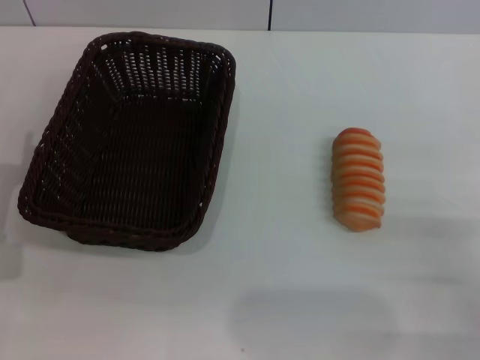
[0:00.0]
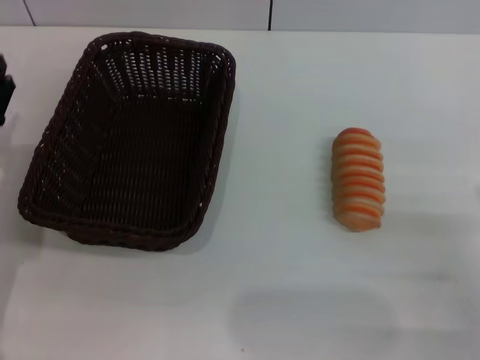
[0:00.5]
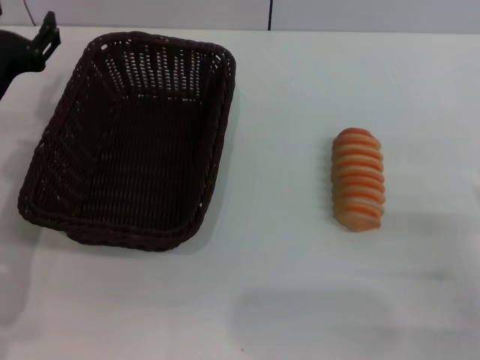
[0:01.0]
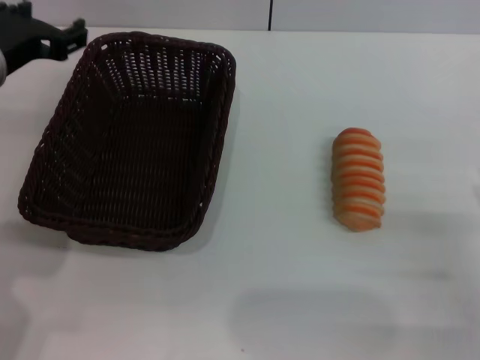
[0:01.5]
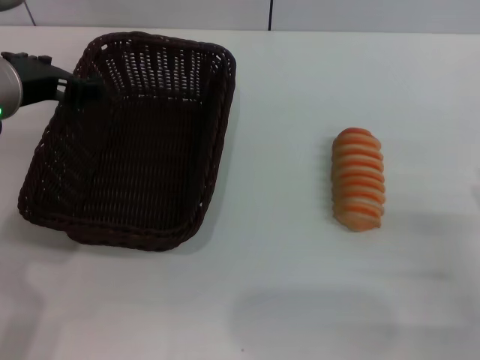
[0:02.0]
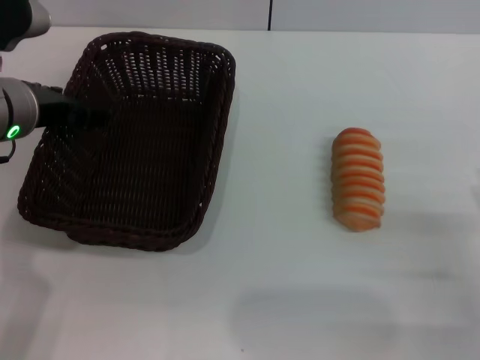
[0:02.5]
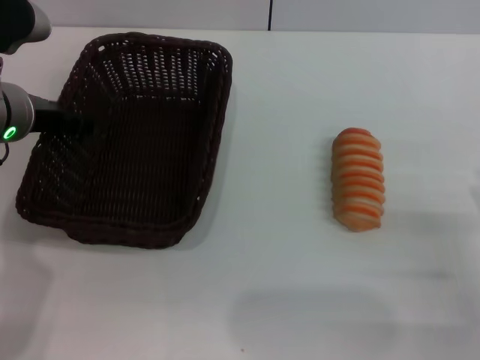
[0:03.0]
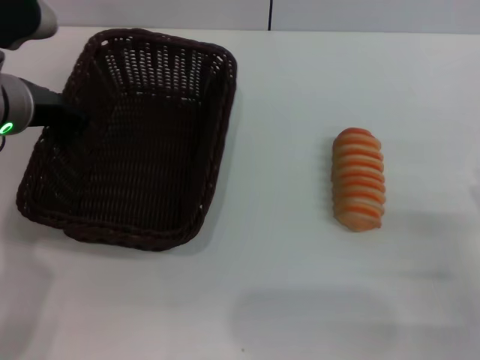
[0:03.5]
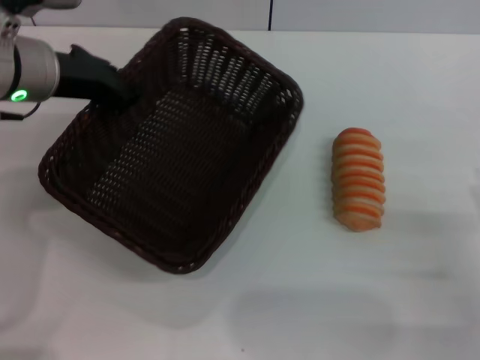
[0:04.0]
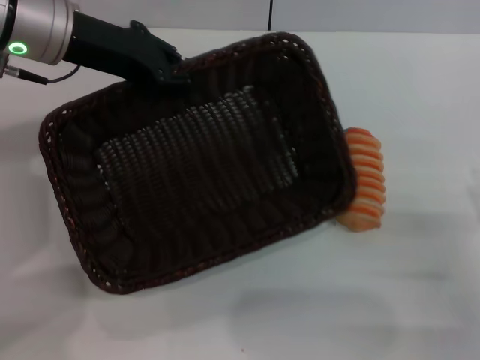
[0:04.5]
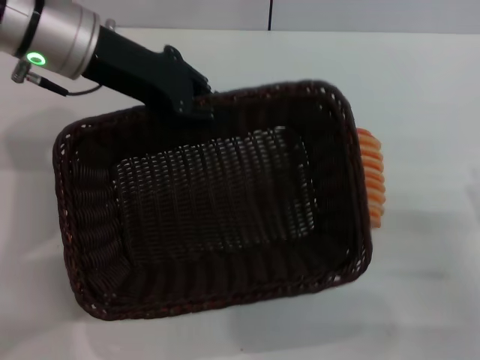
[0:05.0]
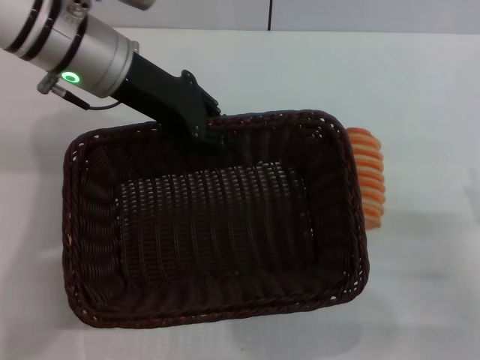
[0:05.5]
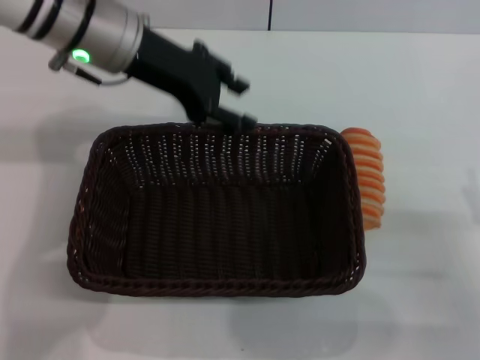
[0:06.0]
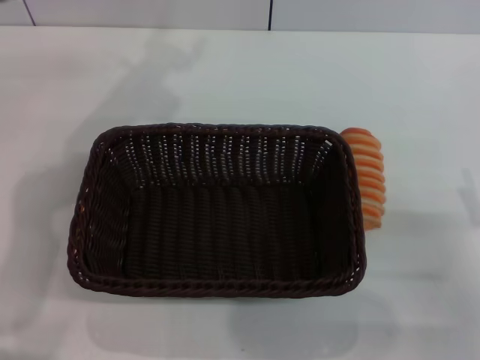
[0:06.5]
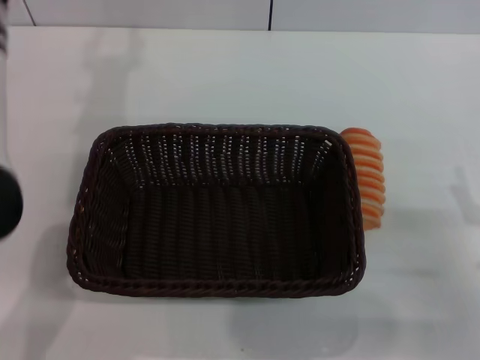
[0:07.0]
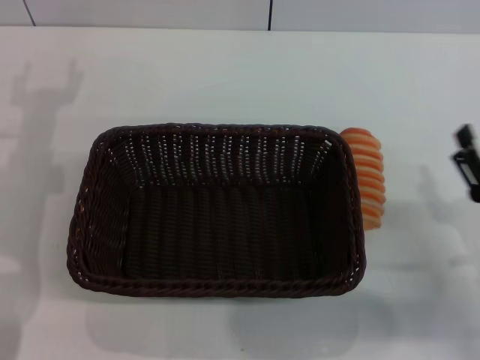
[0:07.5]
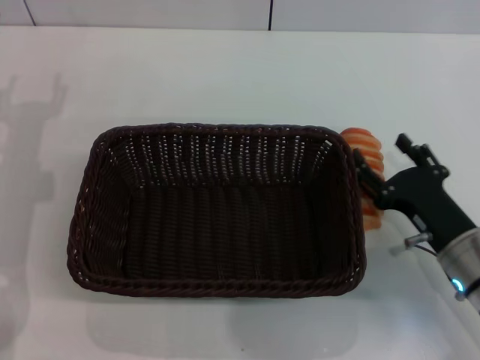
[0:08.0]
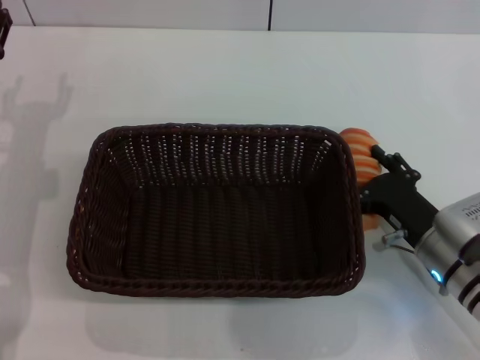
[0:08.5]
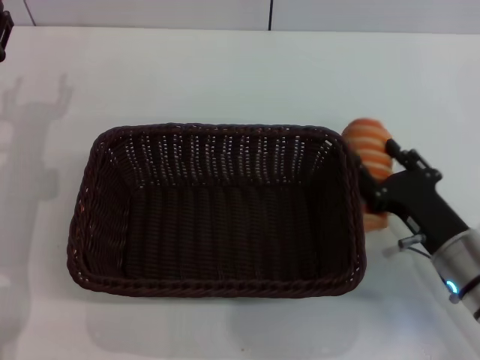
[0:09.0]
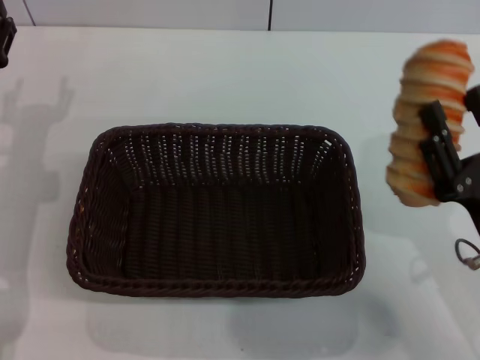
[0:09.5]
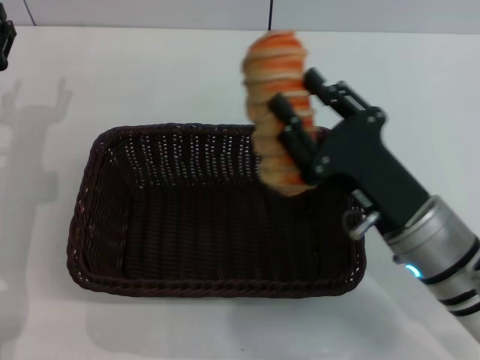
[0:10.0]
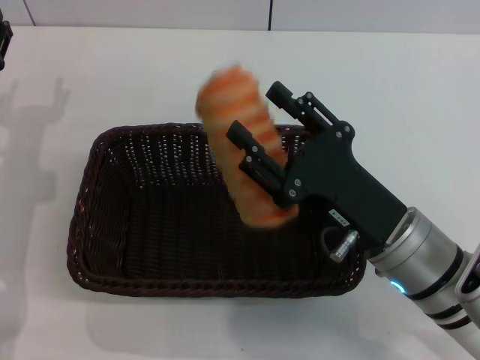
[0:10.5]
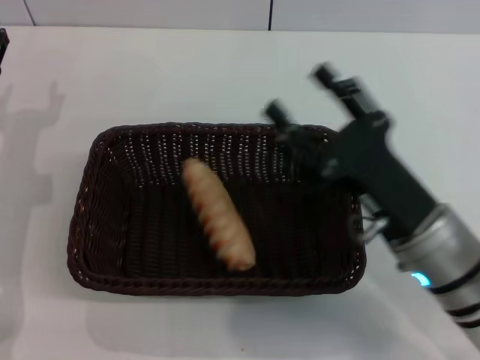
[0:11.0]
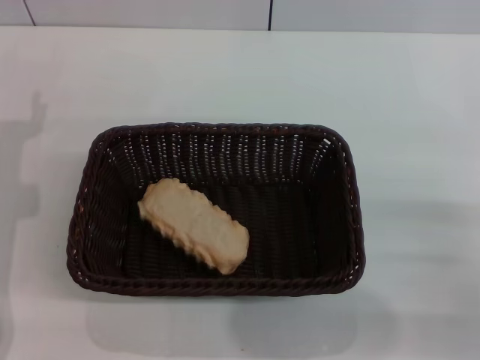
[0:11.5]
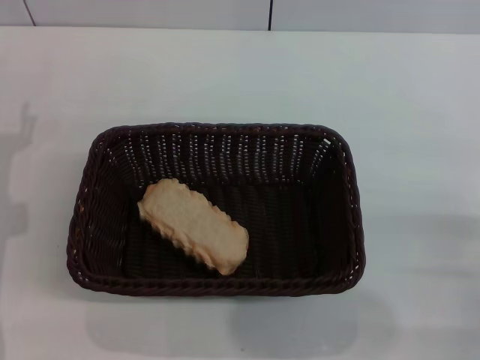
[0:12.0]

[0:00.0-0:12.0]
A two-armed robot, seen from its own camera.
Step, 0.0 to 4.0 s: Pick up the dark basket with the left gripper.
Step, 4.5 to 6.0 s: Place the dark basket in the center of view with the left gripper.
Step, 6.5 to 9.0 s: Pick up the long bread with the right gripper.
Step, 9.5 to 11.0 s: Place the long bread into the dark basket with the right gripper.
0.0 to 2.0 s: The left gripper travels upward, forward and to the right by some 20 cm.
2.0 to 4.0 s: The left gripper closes.
4.0 to 6.0 s: The left gripper goes roughly 5 cm to the right, and opens up.
6.0 to 8.0 s: The left gripper travels to the left, downward and backward by roughly 20 cm, and opens its fingers. Meanwhile the right gripper travels to the left and forward by about 10 cm.
8.0 to 10.0 s: The right gripper moves to the left and upward, roughly 10 cm, and closes its fingers.
10.0 to 12.0 s: The left gripper moves about 5 cm, while the right gripper moves to the right, roughly 15 cm, and opens up.

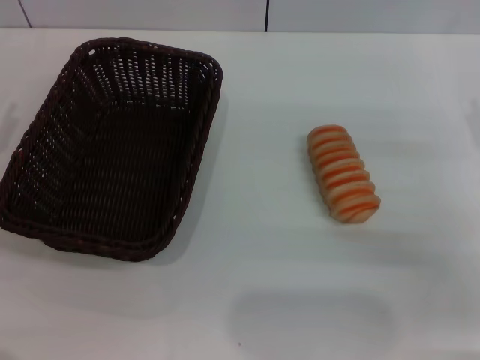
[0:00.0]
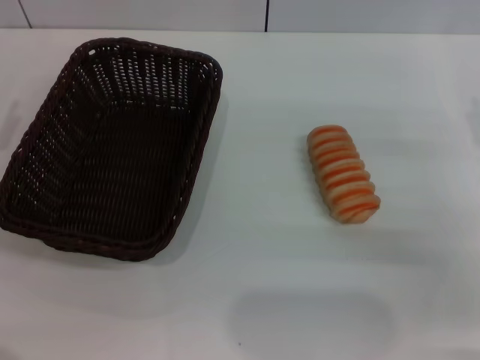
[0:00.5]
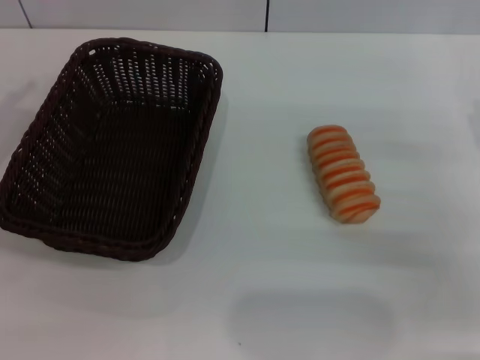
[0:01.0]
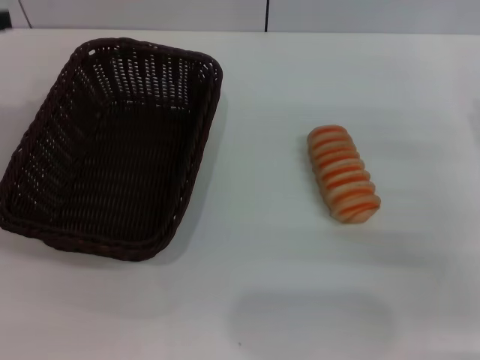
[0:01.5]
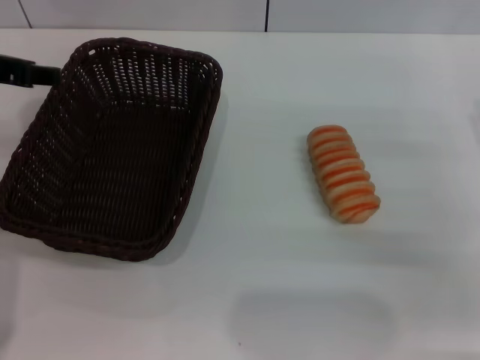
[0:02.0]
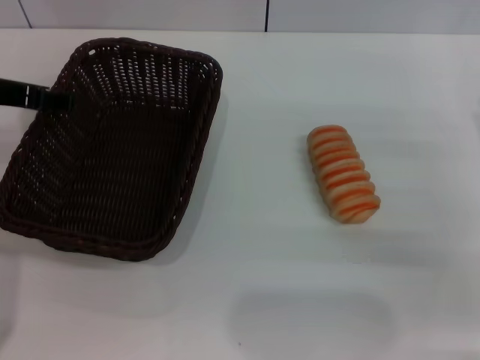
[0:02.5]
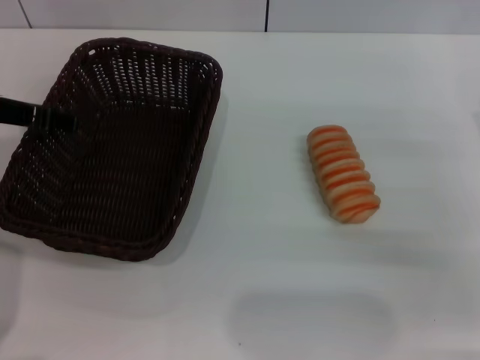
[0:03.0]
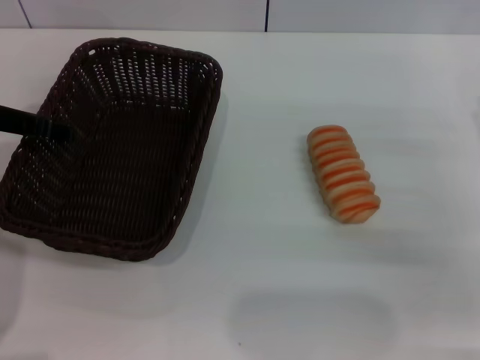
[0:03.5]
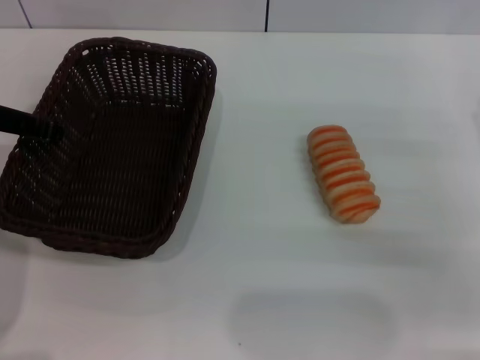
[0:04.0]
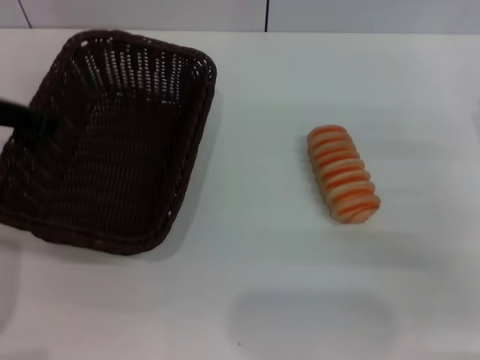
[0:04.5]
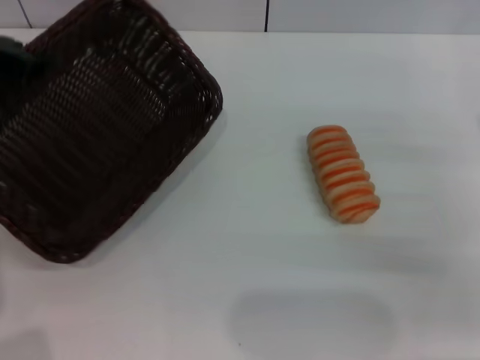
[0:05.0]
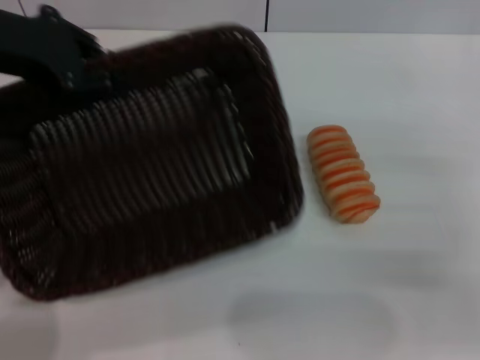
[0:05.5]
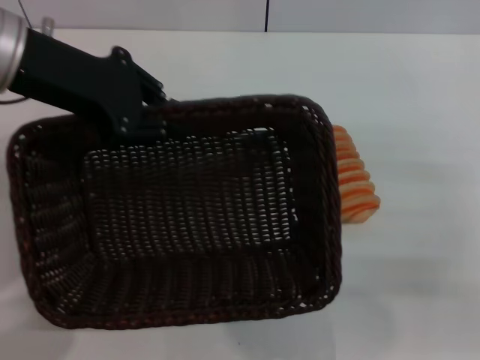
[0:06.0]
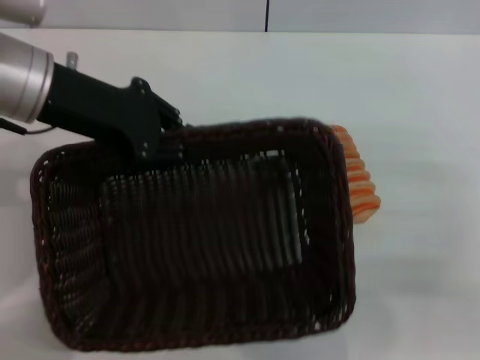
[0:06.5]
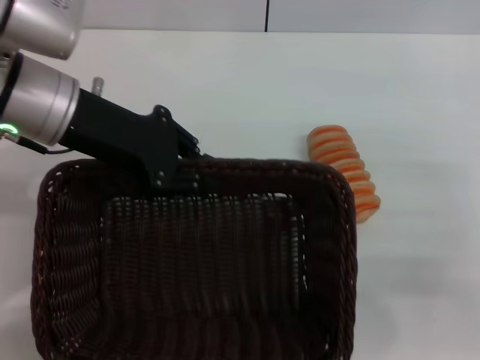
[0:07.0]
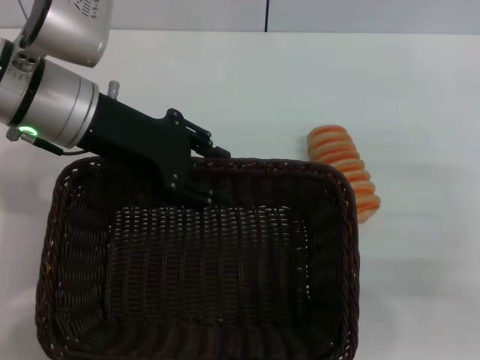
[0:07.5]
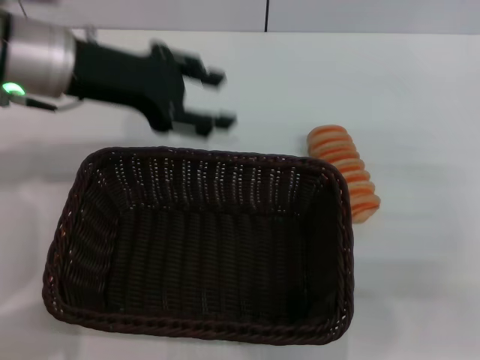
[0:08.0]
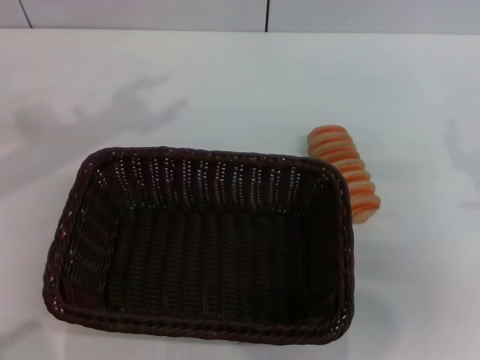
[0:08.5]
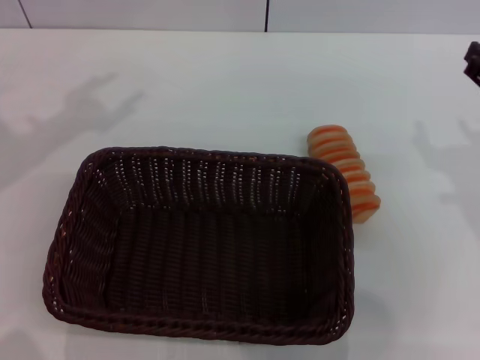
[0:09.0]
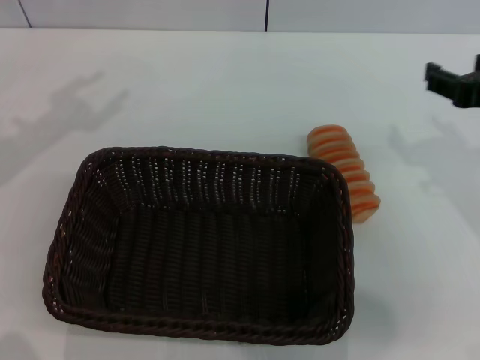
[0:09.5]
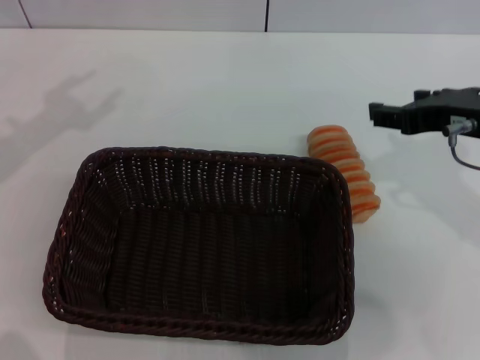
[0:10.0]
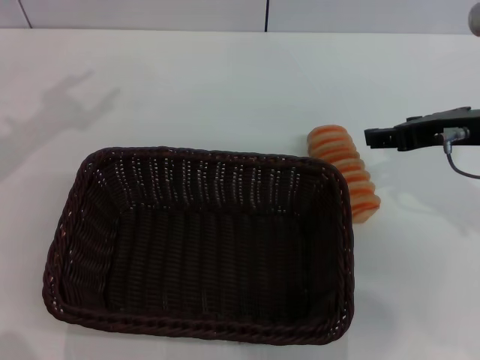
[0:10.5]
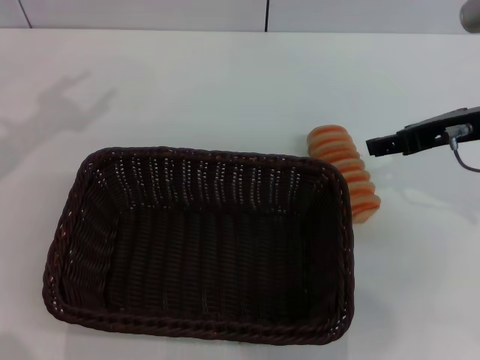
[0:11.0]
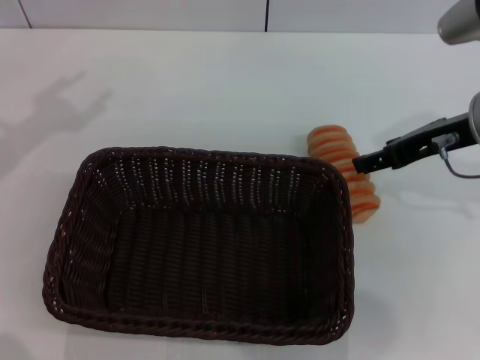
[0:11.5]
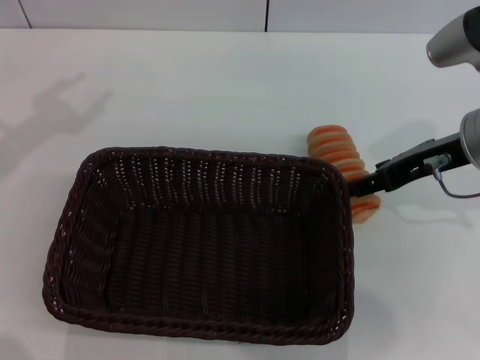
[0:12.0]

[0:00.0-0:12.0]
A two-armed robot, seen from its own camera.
Step, 0.0 to 5.0 s: Pick up the dark basket with the left gripper.
Step, 5.5 to 7.5 s: Place the dark basket in the center of view with the left gripper.
0.0 to 2.0 s: The left gripper travels upward, to the right and forward by some 20 cm.
2.0 to 4.0 s: The left gripper is displaced downward by some 5 cm, and closes.
4.0 to 6.0 s: The left gripper heads upward and to the right, covering some 10 cm.
6.0 to 8.0 s: The left gripper opens its fingers.
8.0 to 10.0 s: The right gripper goes some 15 cm to the left, upward and forward, while the left gripper goes about 15 cm to the left.
10.0 to 12.0 s: The right gripper shifts by about 5 cm.

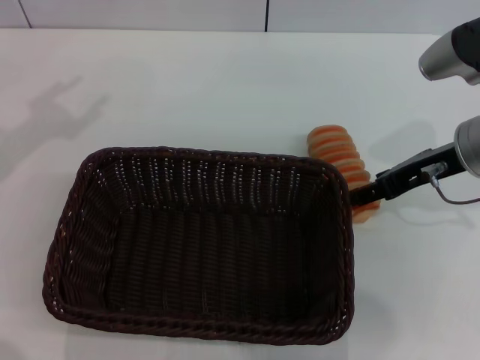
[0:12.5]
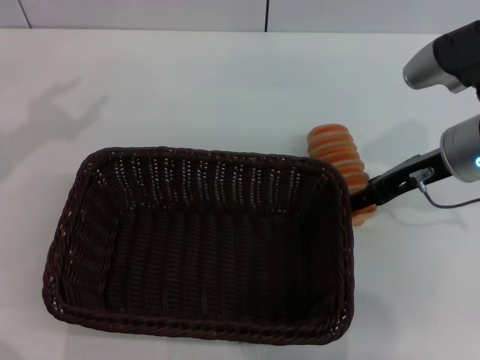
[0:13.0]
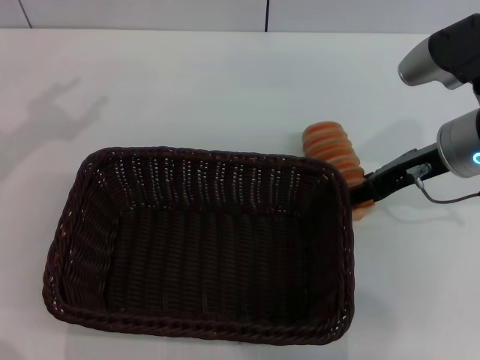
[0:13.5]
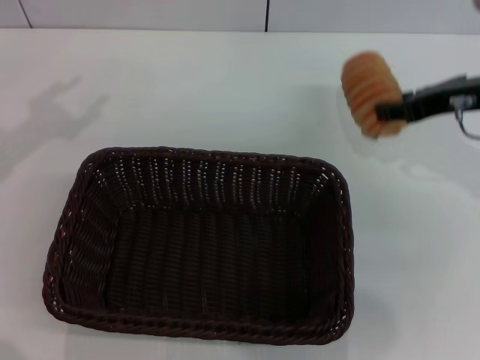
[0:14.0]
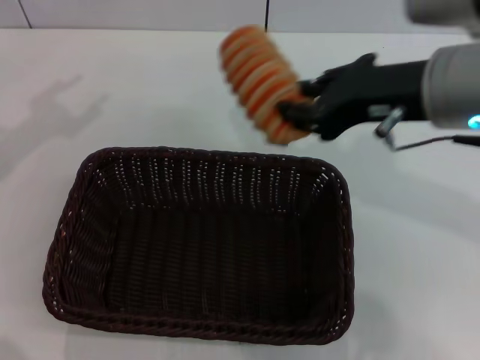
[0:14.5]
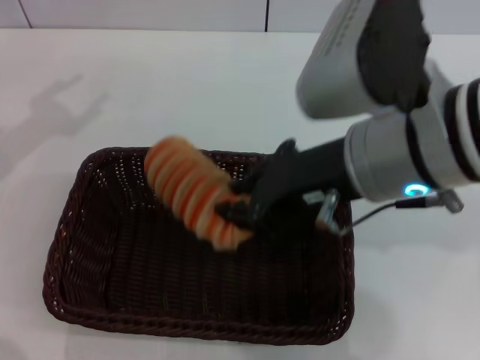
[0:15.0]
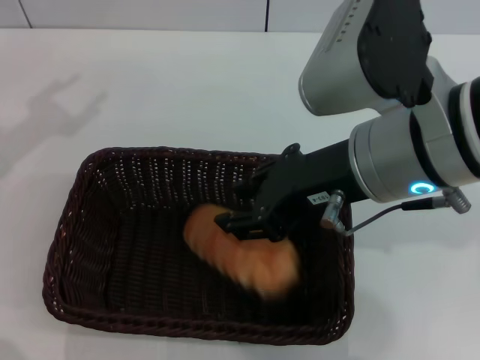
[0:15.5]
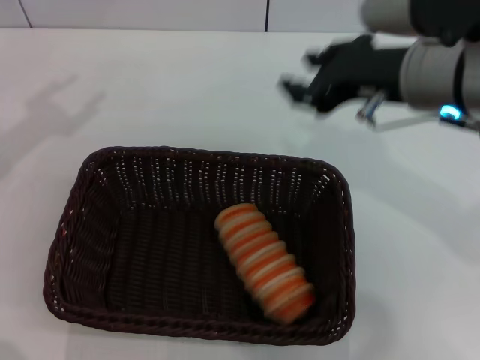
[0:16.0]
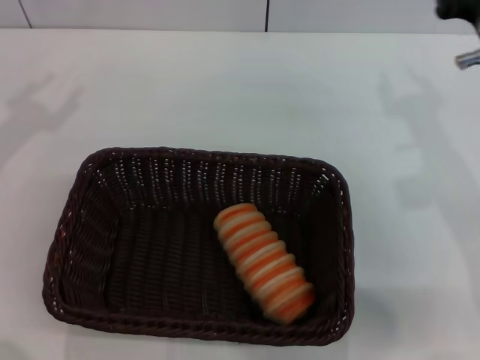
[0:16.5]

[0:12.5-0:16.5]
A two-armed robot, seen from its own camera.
Step, 14.5 to 15.5 s: Place the long bread into the dark basket with the right gripper.
12.5 to 14.5 s: The right gripper goes roughly 10 cm upward and to the left, and closes up.
14.5 to 16.5 s: The right gripper goes roughly 10 cm downward and to the right.
